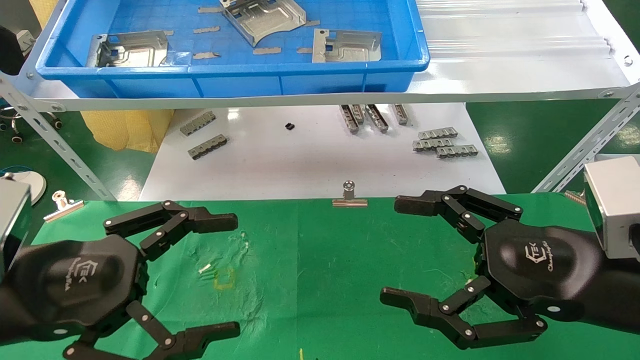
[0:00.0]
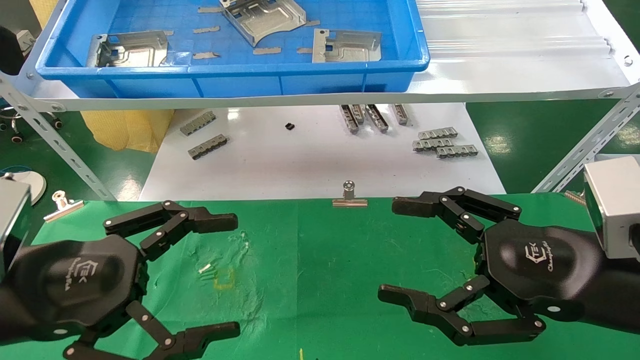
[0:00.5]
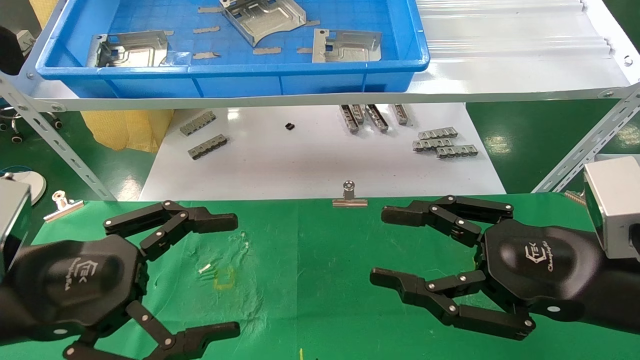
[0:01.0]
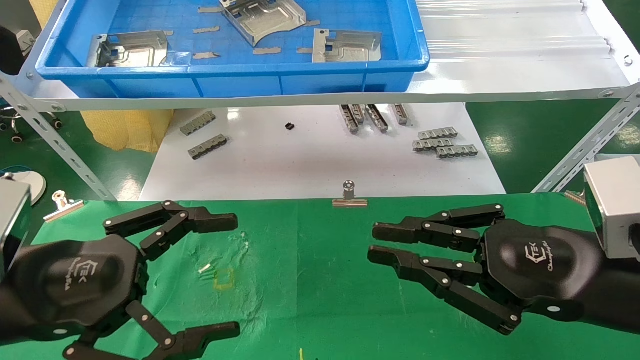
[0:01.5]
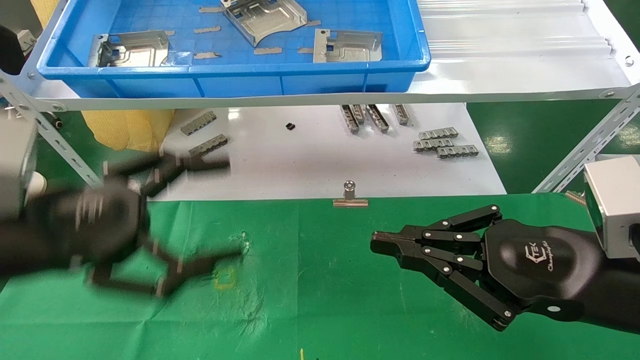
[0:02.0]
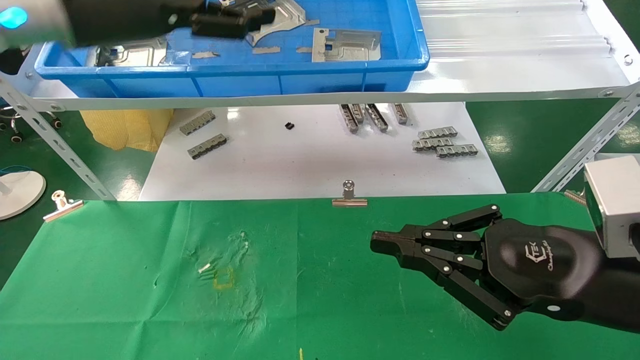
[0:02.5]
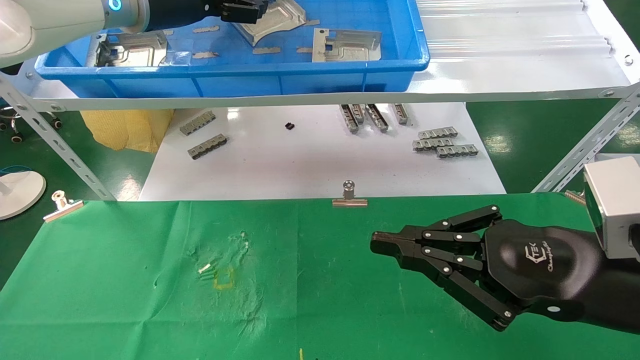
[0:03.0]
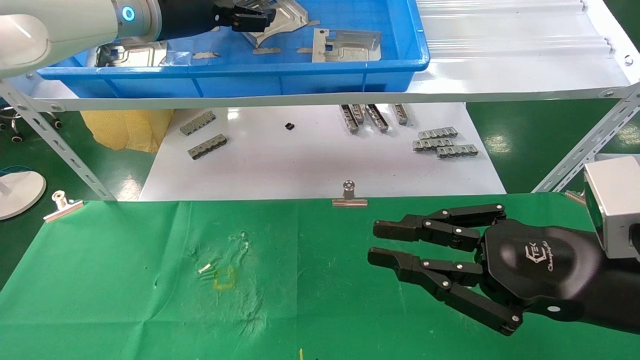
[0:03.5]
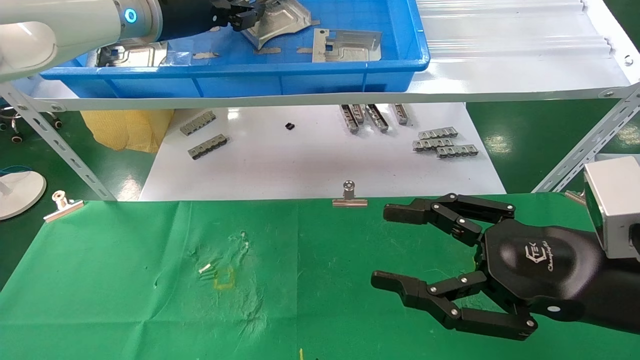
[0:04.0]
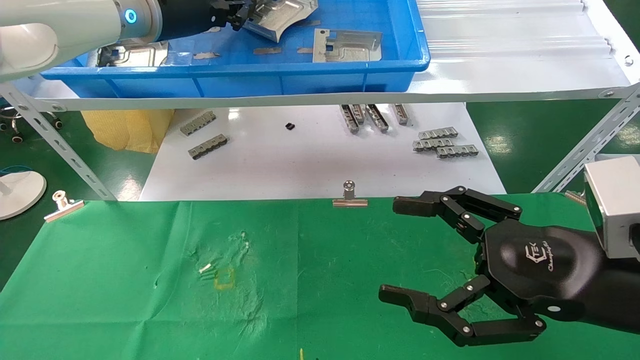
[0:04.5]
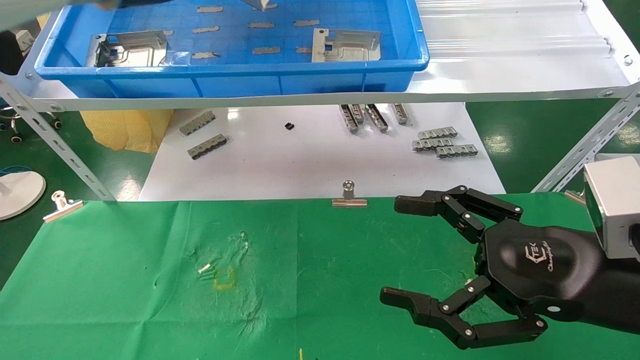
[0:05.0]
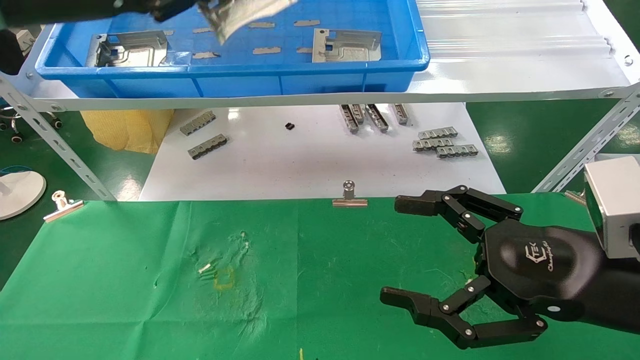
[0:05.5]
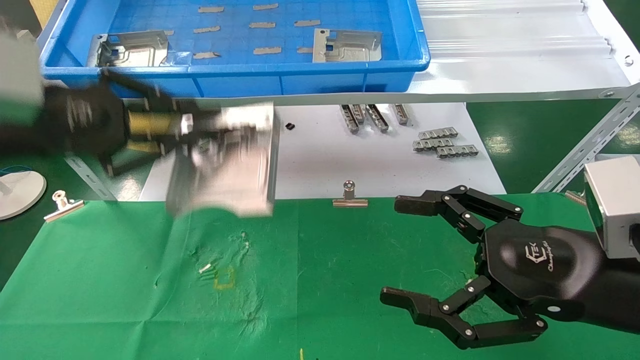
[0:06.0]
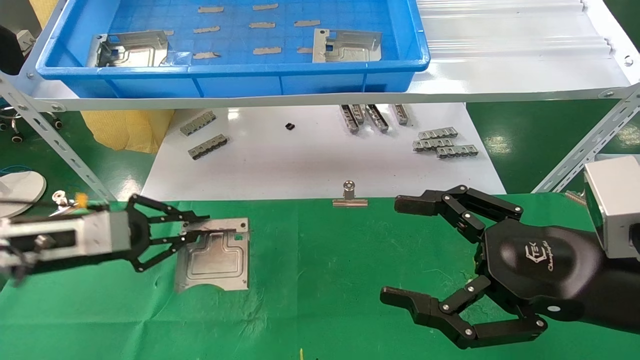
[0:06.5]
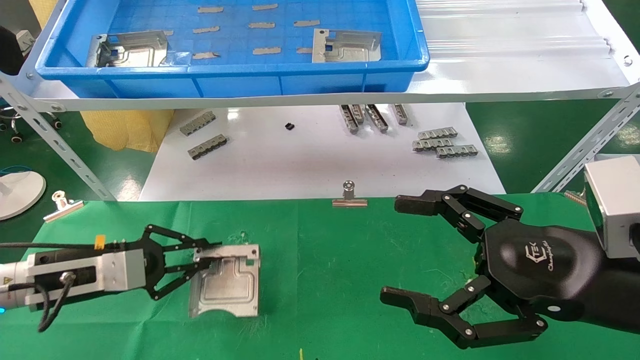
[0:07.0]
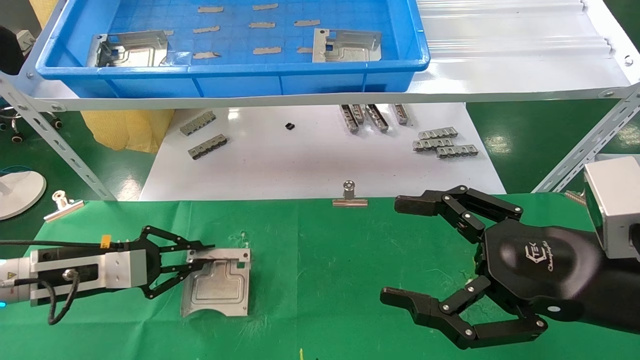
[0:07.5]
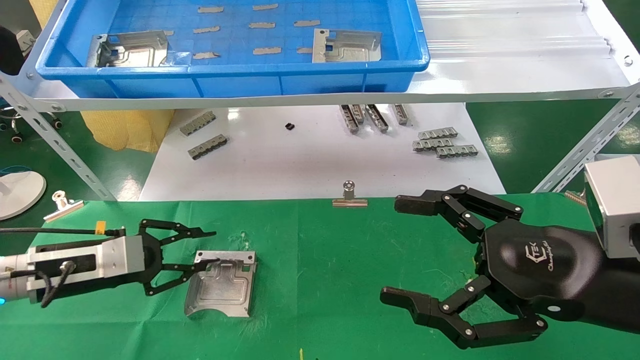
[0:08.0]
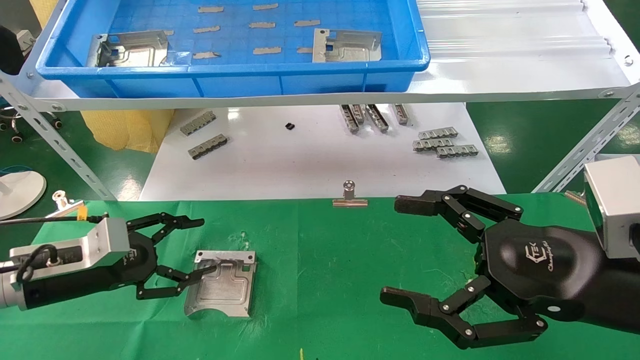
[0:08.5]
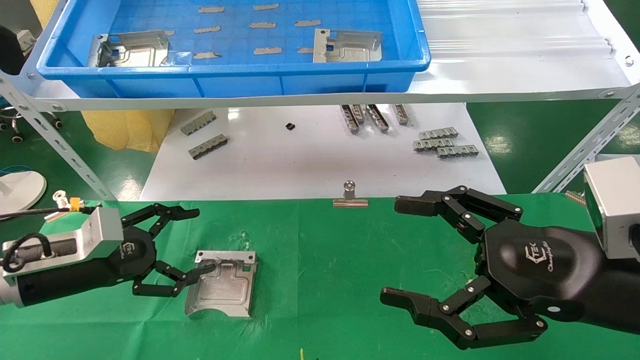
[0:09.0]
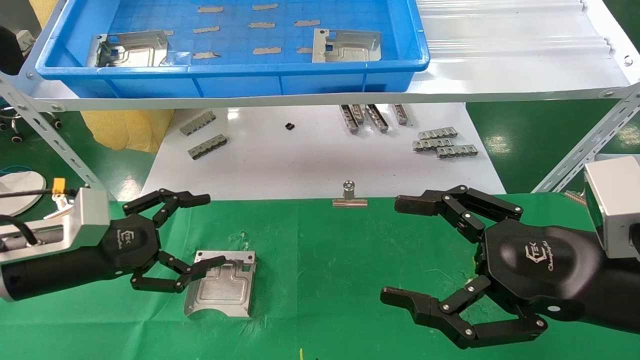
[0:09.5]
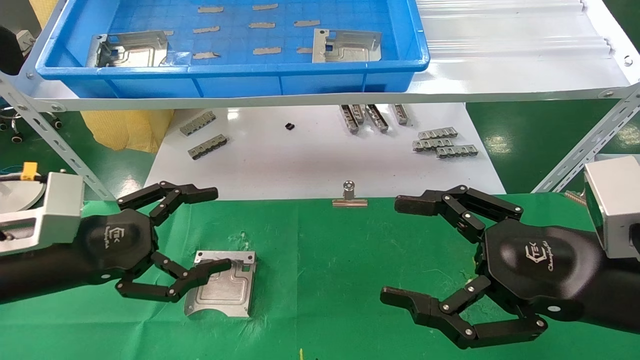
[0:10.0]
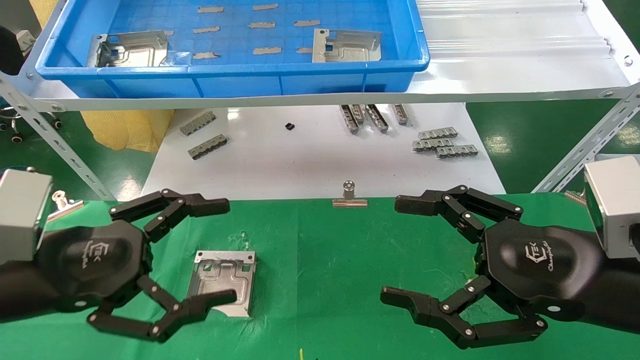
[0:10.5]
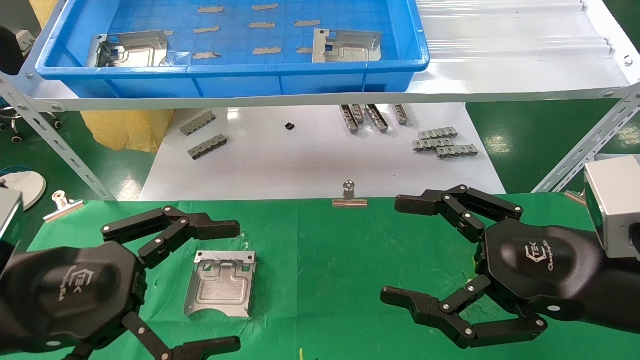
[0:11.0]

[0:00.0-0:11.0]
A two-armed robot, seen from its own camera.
Task of the whole recording: use the mechanical arm to pick up the parts and place them on the table.
Step, 0:02.0 to 0:04.5: Pick up the hard drive bracket from the feeding area.
Step, 0:05.0 to 0:08.0: Place the hard drive bracket into the box.
0:00.0 to 0:02.0: The left gripper is displaced upward by some 5 cm, while the right gripper closes.
0:02.0 to 0:03.5: The left gripper is displaced forward and upward by approximately 25 cm.
0:03.5 to 0:05.5: The left gripper goes approximately 15 cm backward and to the left, and closes up. Meanwhile the right gripper opens up.
0:05.5 to 0:07.5: The left gripper heads downward, covering approximately 30 cm.
0:07.5 to 0:09.0: The left gripper opens its fingers.
0:09.0 to 0:11.0: The left gripper heads backward, upward and to the right, covering some 20 cm.
